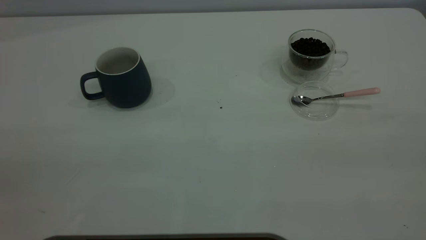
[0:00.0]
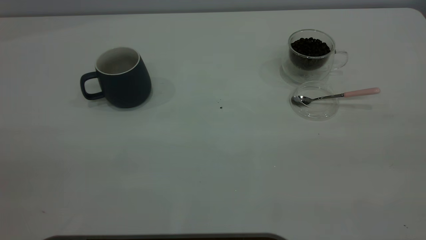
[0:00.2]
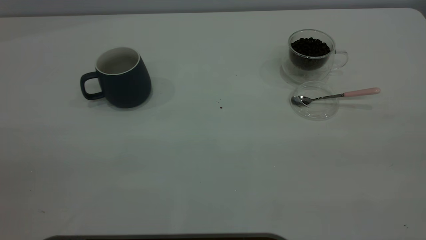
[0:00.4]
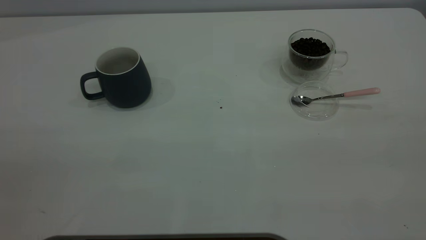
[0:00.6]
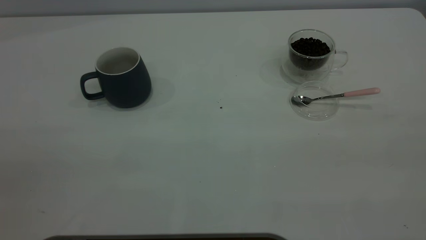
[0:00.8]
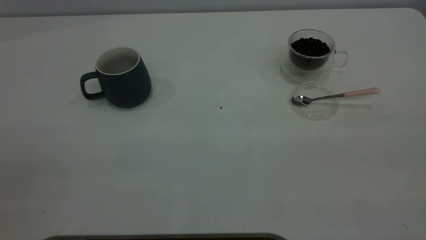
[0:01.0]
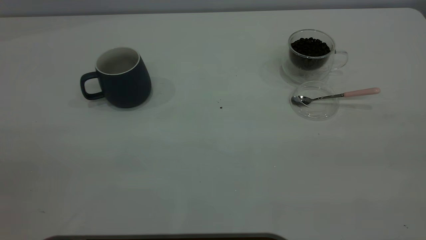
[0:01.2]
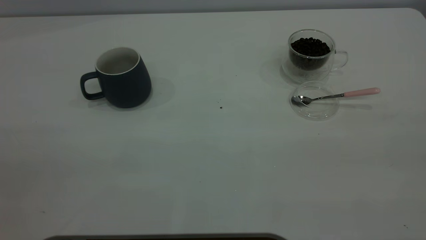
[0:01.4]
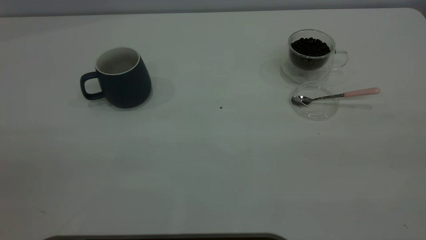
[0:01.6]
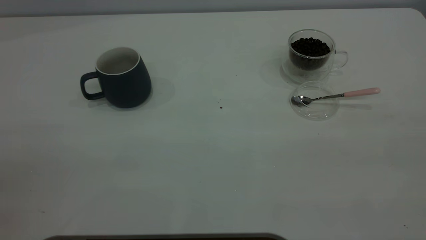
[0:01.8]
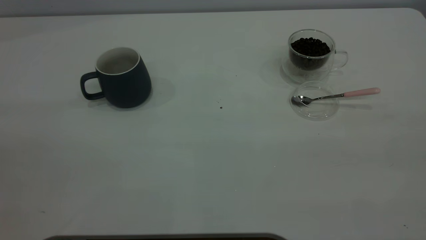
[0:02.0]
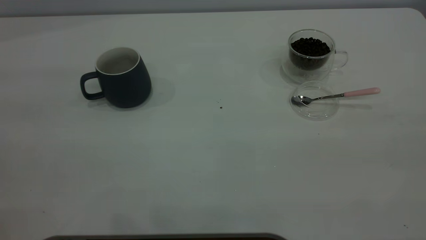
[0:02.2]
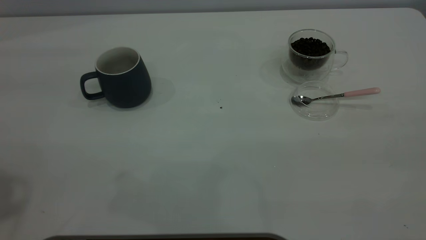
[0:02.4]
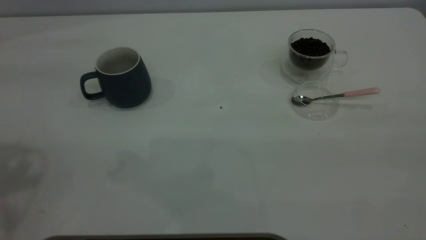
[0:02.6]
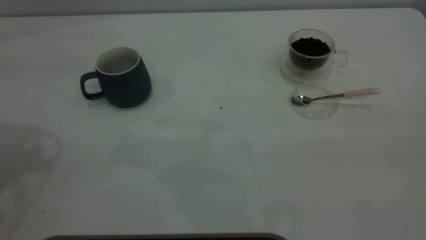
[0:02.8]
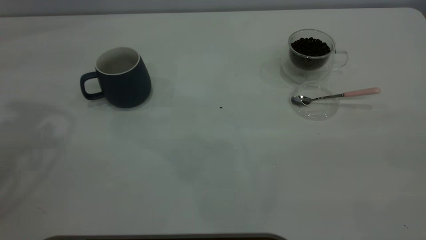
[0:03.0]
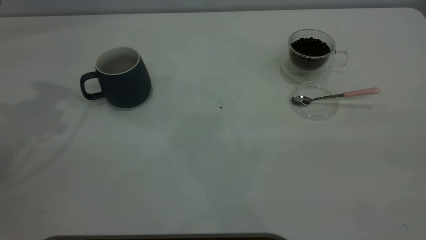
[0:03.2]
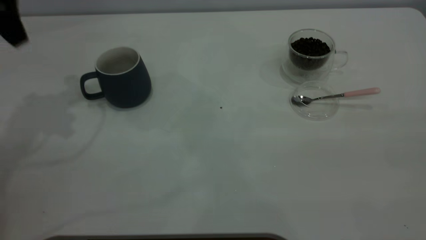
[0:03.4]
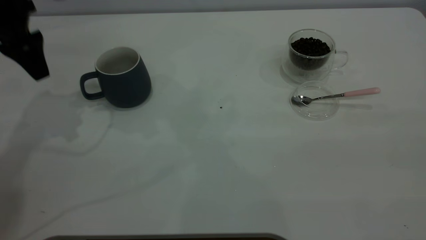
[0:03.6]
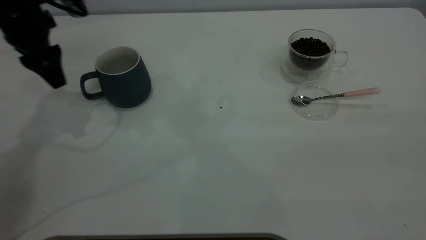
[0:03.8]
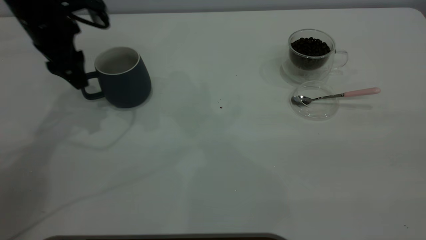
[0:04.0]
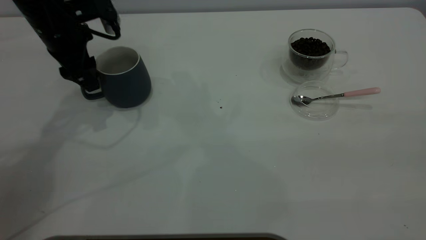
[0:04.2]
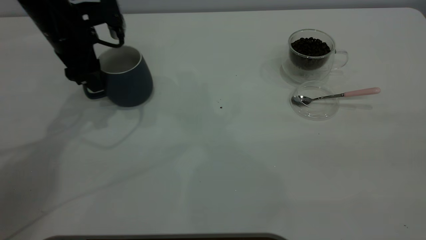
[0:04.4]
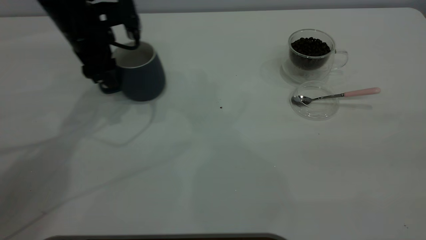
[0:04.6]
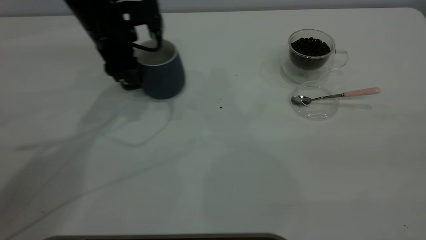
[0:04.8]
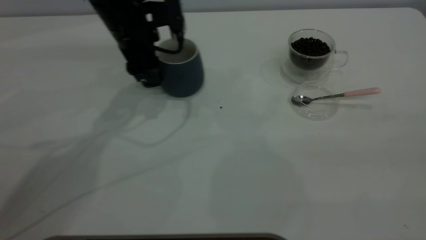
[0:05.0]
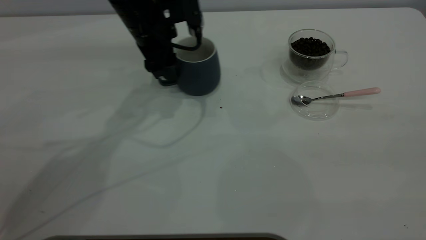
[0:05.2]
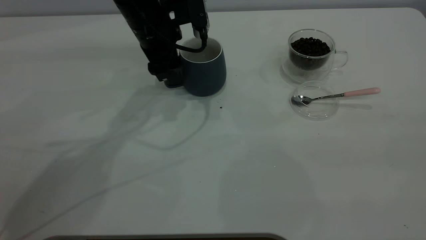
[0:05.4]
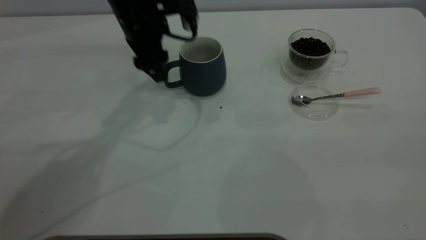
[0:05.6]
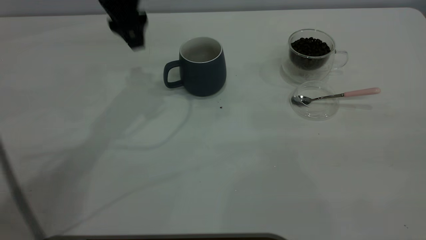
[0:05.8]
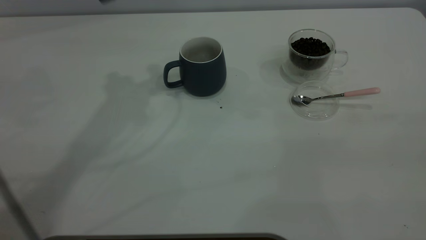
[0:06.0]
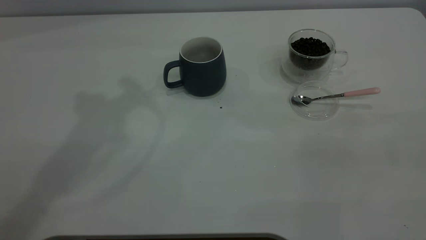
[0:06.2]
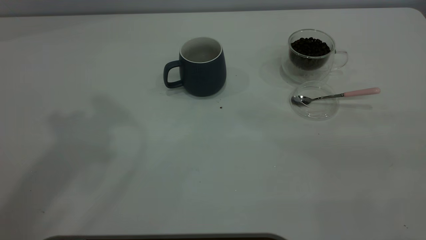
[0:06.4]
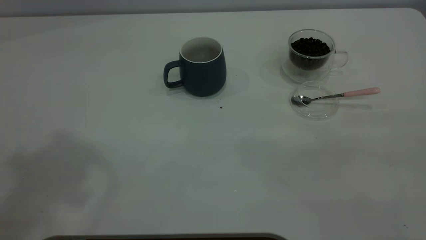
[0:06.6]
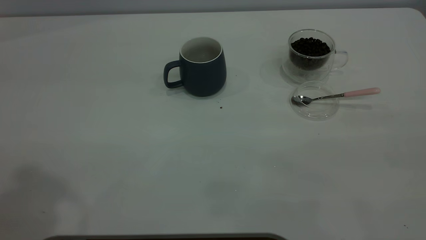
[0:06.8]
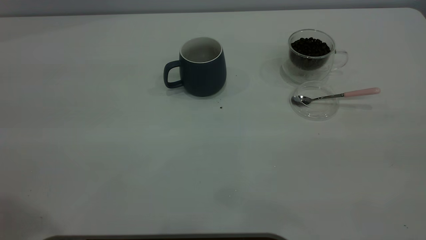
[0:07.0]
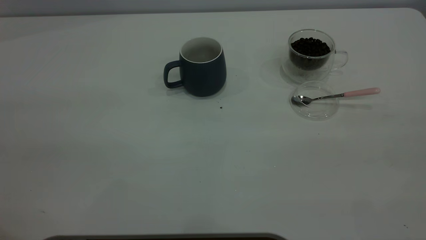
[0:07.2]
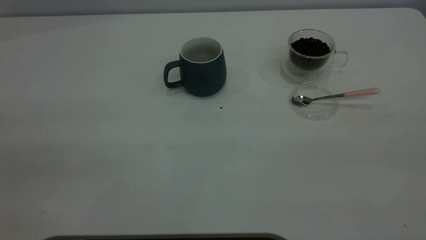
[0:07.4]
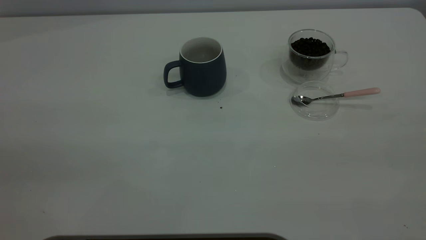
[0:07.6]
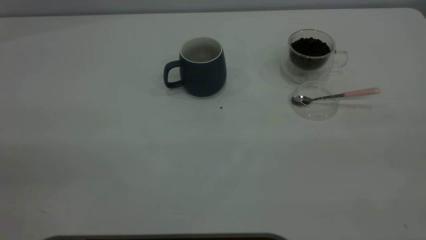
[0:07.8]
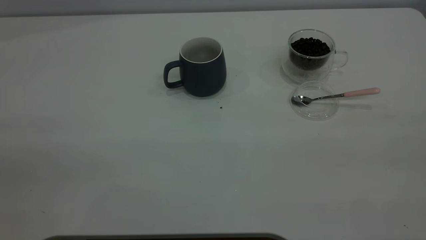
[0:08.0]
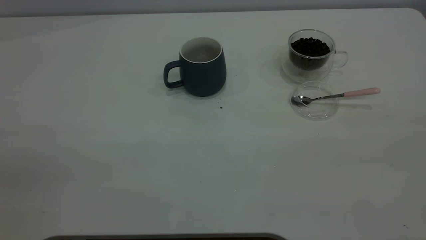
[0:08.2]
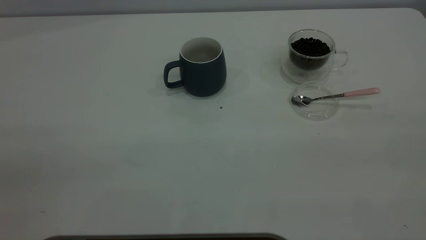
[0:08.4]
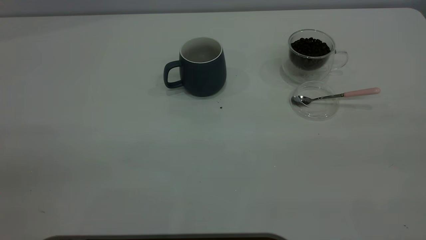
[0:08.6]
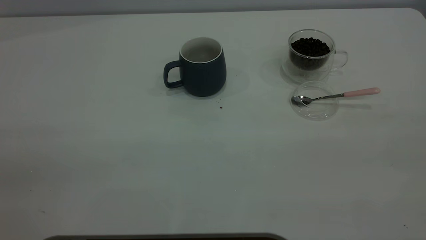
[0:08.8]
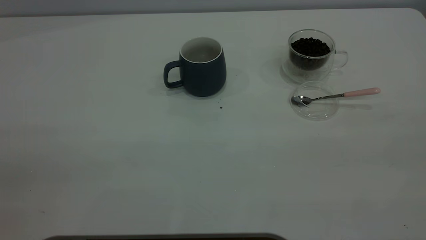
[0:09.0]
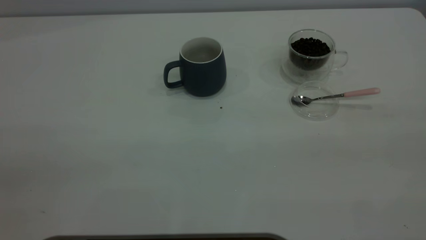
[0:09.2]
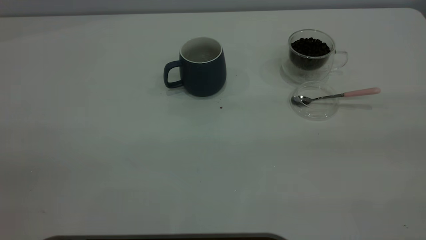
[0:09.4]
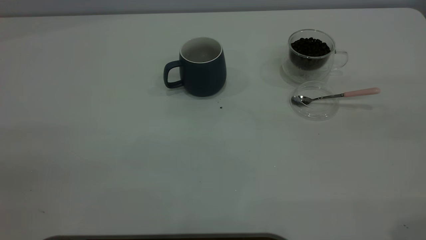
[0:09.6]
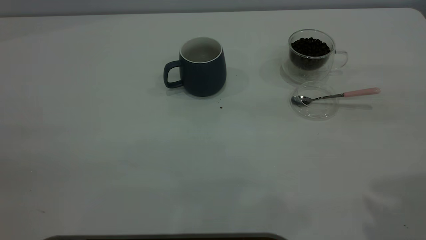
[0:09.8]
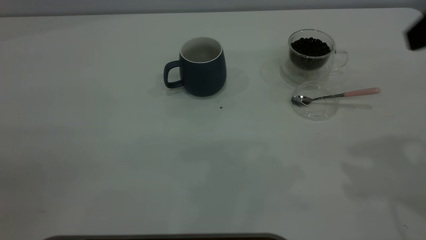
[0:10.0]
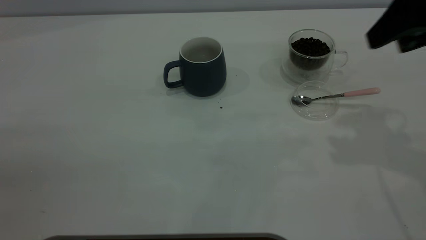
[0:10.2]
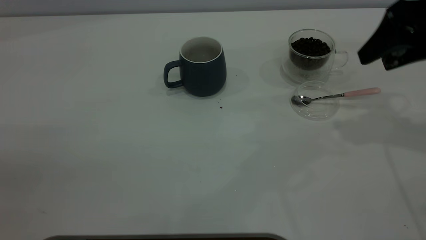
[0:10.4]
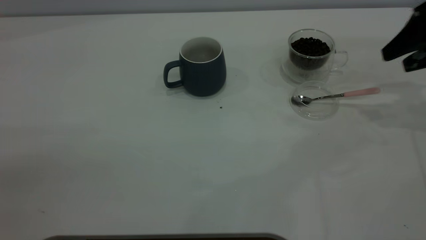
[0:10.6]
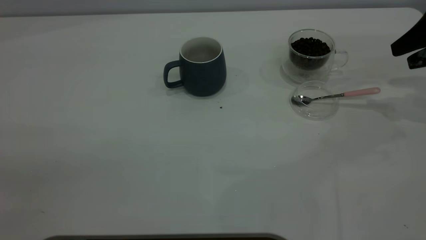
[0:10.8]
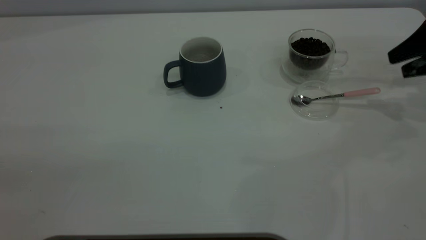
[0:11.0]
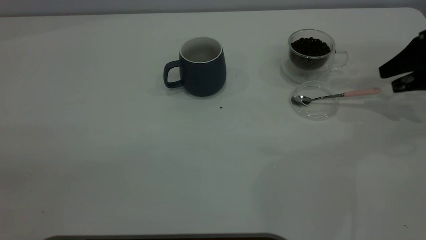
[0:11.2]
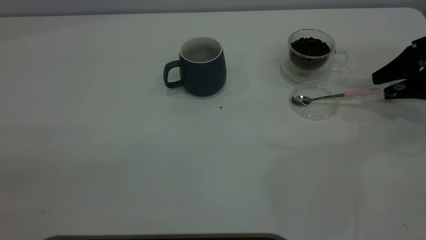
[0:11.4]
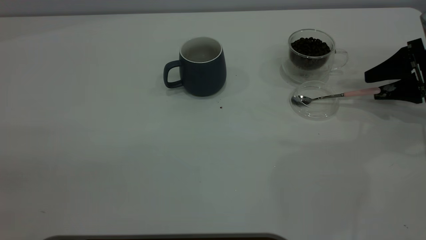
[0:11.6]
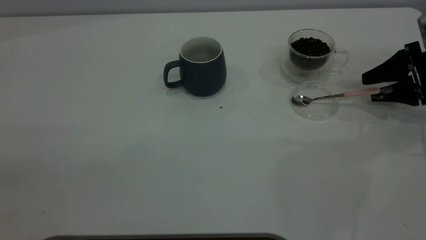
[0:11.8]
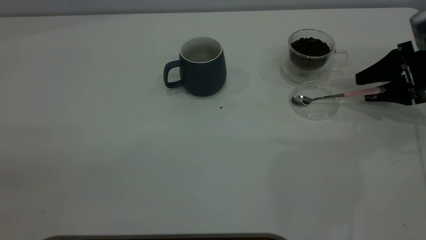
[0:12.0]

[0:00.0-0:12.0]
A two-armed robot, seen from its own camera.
Task of the whole recording: the left gripper place the grey cup in the center of the table, the right gripper take the pink spoon from the cup lid and scoop out the coffee beans from the coffee cup and put them into the grey cup, the right gripper put the spoon back into the cup lid.
Step, 0:00.0 to 0:05.6: Move the cup to the center of view.
0:00.0 to 0:01.6: The two grippers keep their place.
0:03.0 to 0:04.4: The left gripper shifts some 25 cm downward, forward and to the right.
0:04.4 to 0:06.0: The left gripper heads upward, covering roughly 20 cm.
0:06.0 to 0:07.6: The left gripper travels backward by roughly 35 cm.
0:09.0 to 0:10.4: The right gripper travels forward and downward by roughly 35 cm.
0:10.4 to 0:12.0: The right gripper is displaced downward and to the right by some 15 cm.

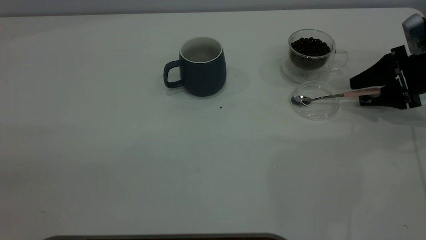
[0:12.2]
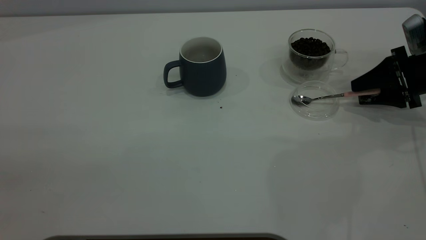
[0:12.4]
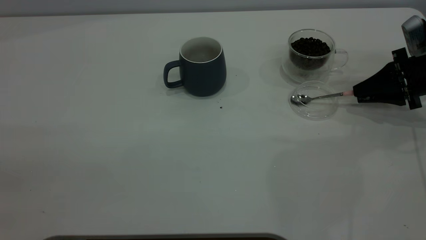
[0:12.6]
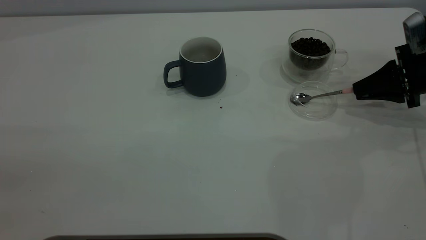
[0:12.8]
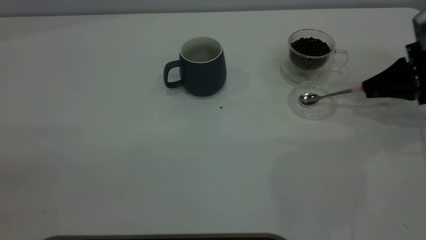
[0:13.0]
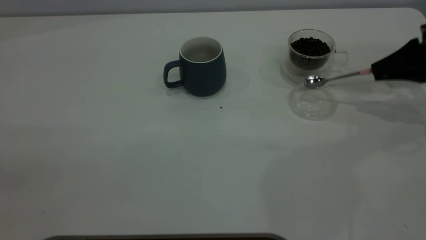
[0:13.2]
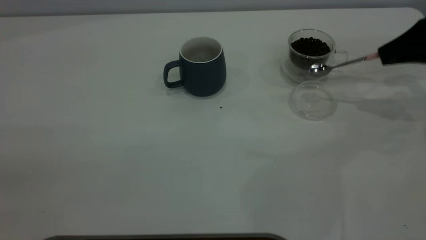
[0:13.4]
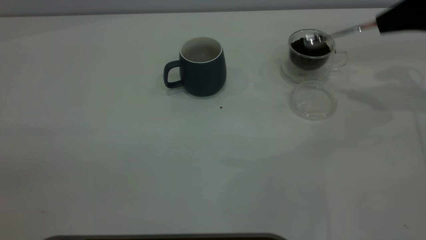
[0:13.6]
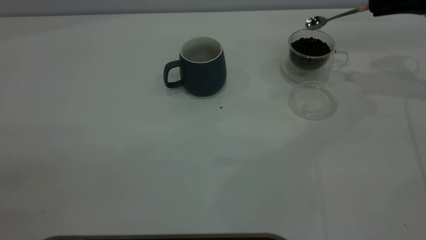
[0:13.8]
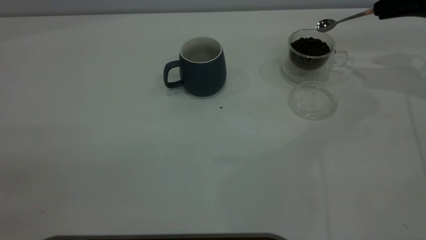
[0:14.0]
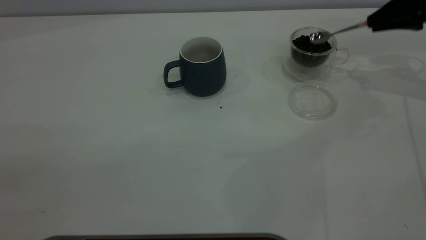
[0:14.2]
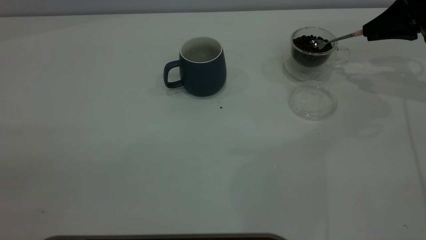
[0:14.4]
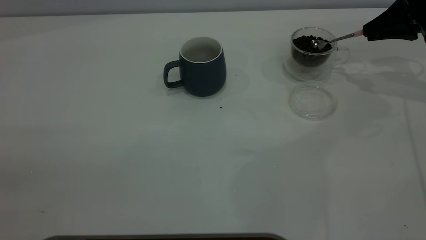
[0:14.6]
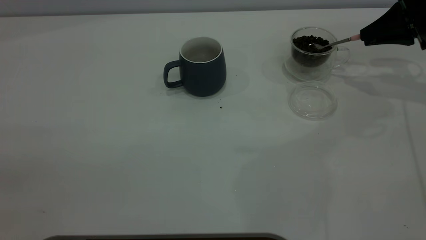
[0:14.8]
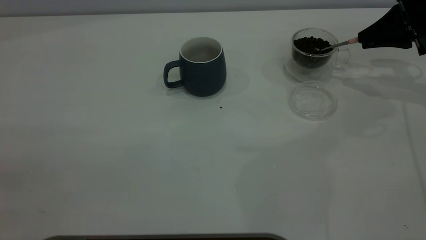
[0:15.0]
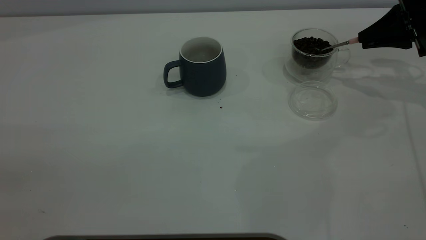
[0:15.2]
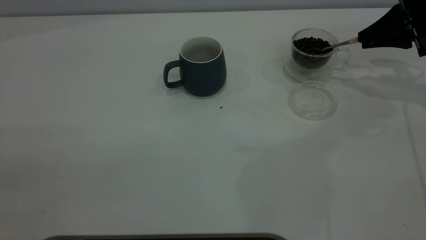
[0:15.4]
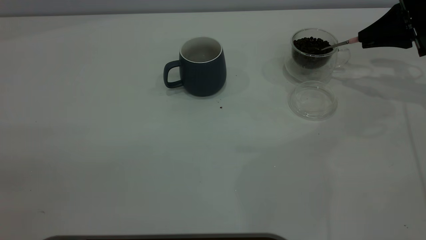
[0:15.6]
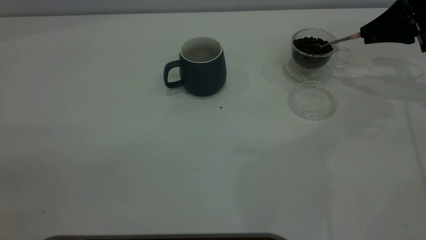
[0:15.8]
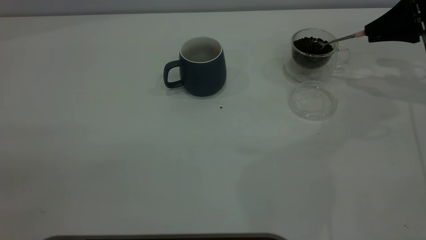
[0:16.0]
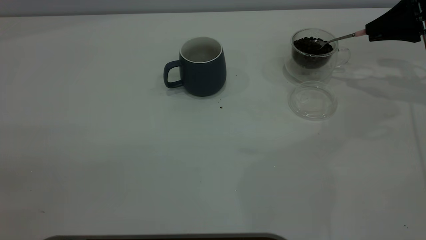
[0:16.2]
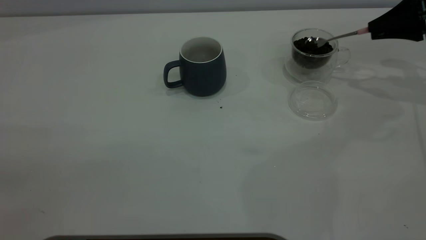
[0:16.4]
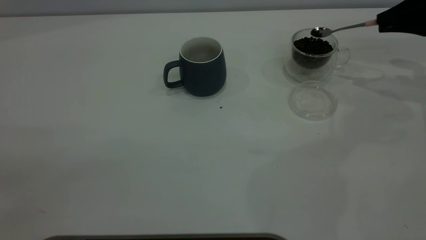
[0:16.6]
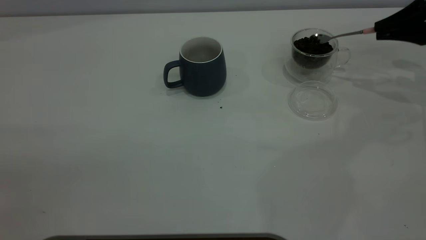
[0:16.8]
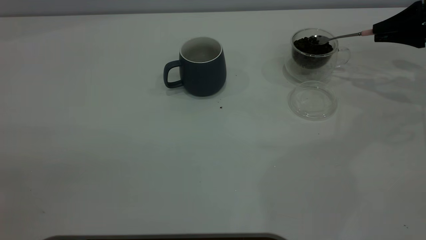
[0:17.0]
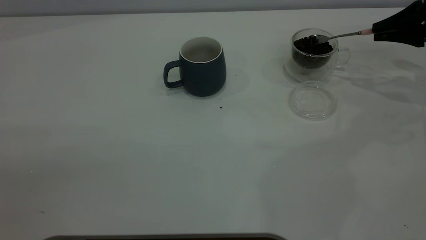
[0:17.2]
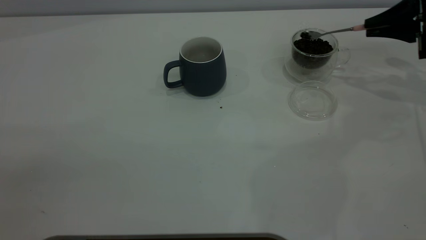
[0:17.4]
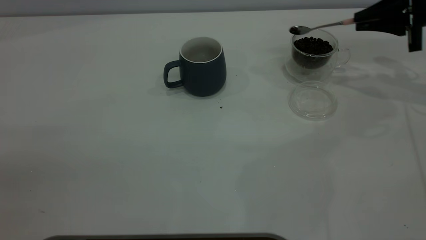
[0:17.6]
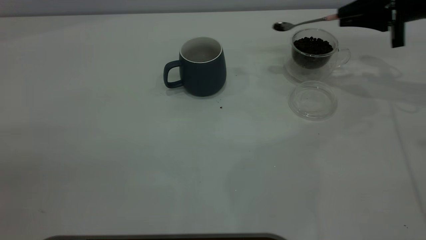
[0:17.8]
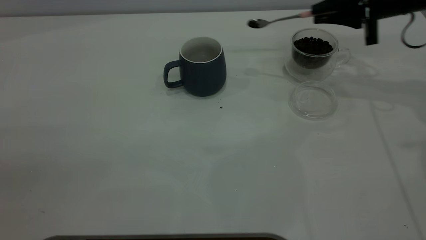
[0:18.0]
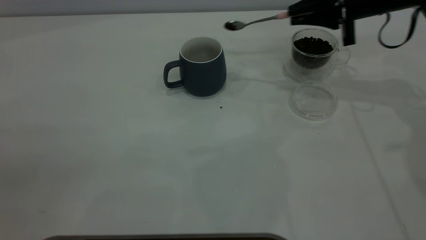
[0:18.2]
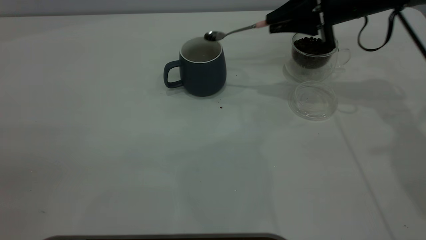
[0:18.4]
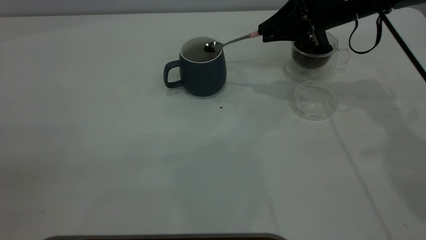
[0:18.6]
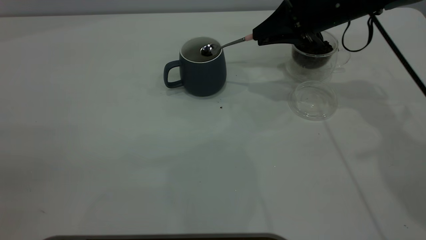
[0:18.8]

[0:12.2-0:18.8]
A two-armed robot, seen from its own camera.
Task of the whole recording: the left gripper place the grey cup in the center of the table, the right gripper take the pink spoon from the cup lid and scoop out the coffee beans from the coffee cup and put them into the grey cup, the right gripper put the spoon back into the cup lid.
0:12.2 to 0:13.8: The right gripper is displaced upward and forward by about 15 cm, and closes its fingers.
0:13.8 to 0:15.4: The right gripper shifts roughly 5 cm downward.
0:15.4 to 0:17.2: The grippers make only small movements.
0:17.2 to 0:18.8: The right gripper moves to the left, about 20 cm.
